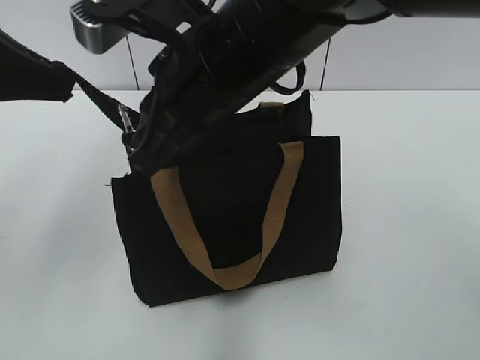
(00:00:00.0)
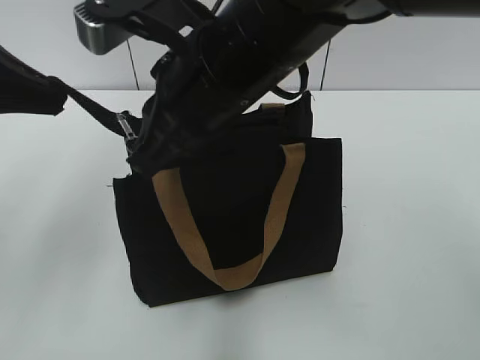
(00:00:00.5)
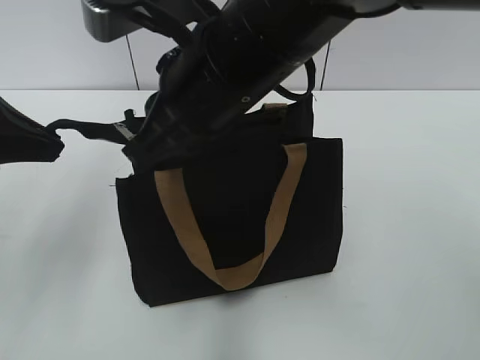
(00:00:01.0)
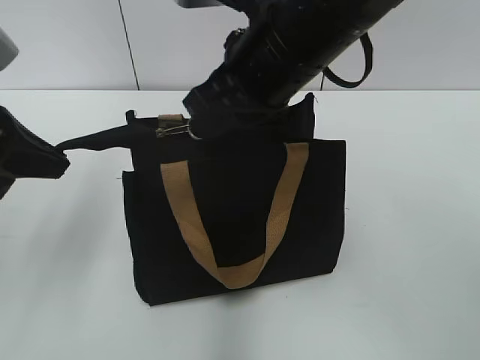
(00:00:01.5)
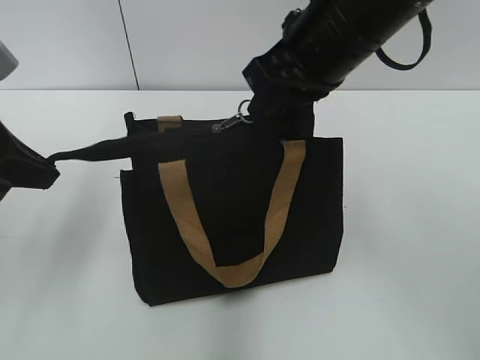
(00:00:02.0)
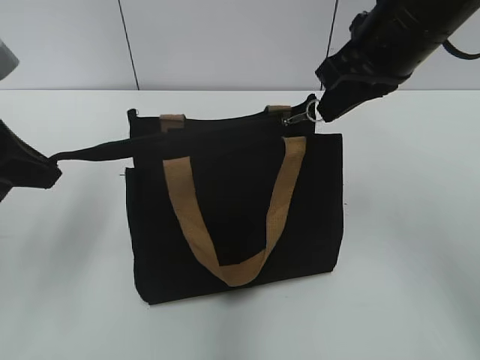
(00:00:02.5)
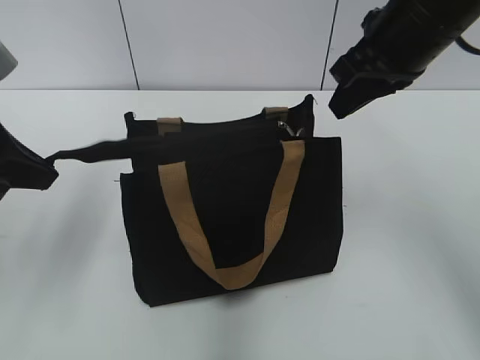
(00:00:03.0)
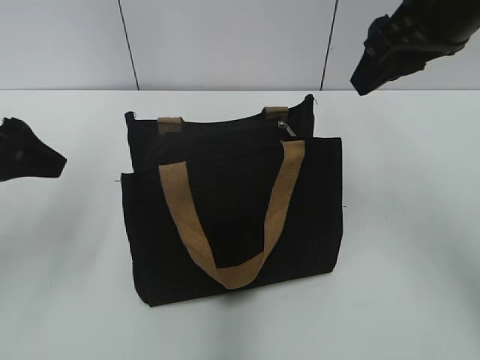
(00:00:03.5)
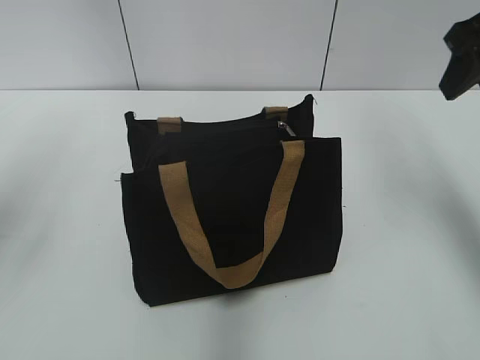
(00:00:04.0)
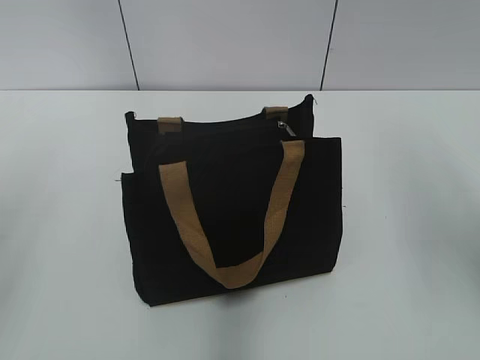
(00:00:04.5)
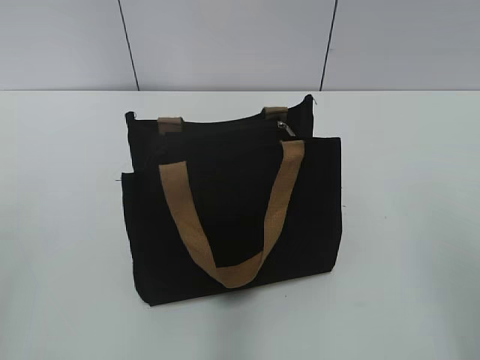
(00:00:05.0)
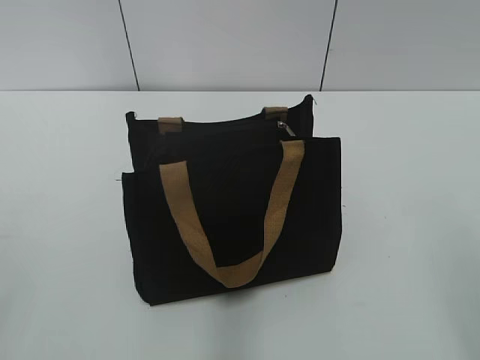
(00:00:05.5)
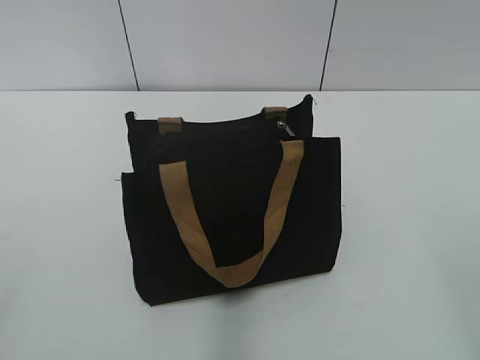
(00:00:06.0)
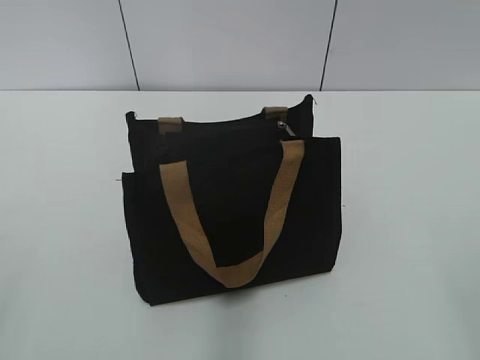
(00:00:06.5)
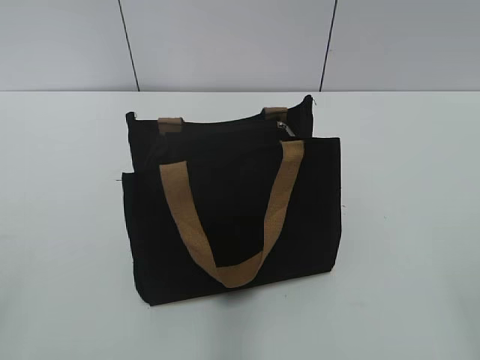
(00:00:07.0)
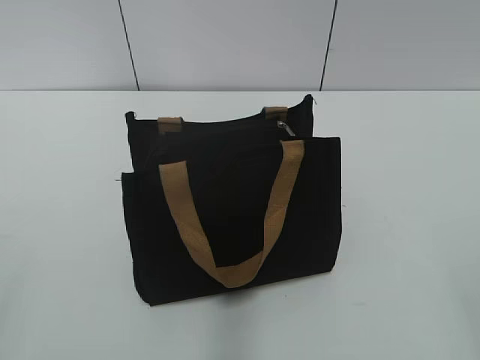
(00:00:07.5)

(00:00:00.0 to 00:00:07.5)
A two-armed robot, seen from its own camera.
Step, 00:00:00.0 - 00:00:03.0: Zip up the bag with your right hand.
00:00:00.0 - 00:00:02.0: The left gripper shifts approximately 5 cm downward. The right gripper moves to the right, approximately 10 cm.
00:00:02.0 - 00:00:04.0: The right gripper shifts some 15 cm to the right, and opens its fingers, while the left gripper goes roughly 5 cm upward, and opens its fingers.
00:00:04.0 - 00:00:05.5: The two grippers go approximately 25 cm backward.

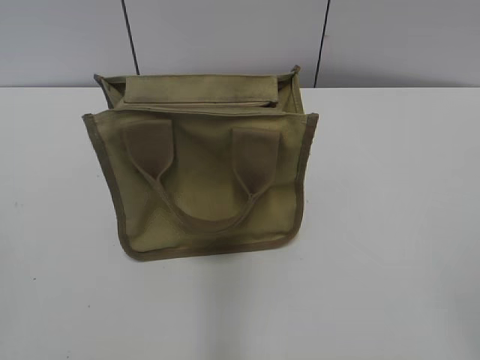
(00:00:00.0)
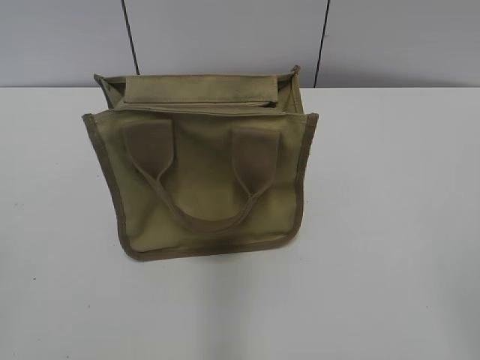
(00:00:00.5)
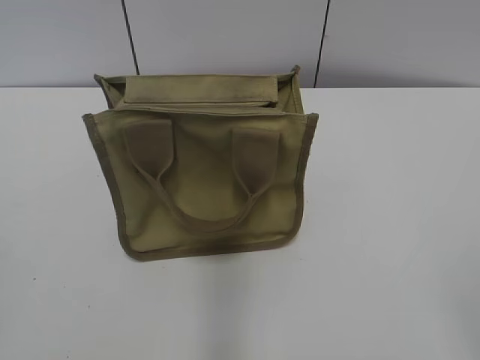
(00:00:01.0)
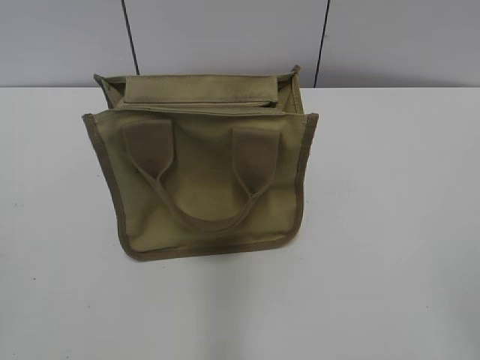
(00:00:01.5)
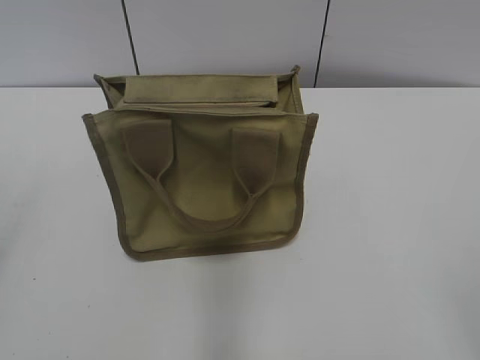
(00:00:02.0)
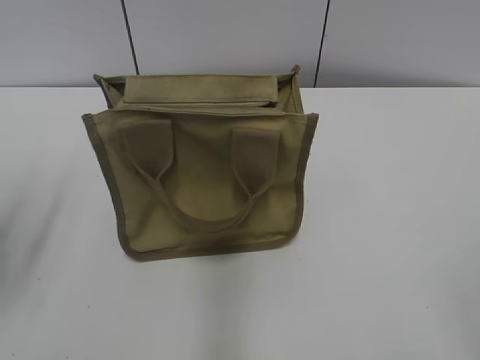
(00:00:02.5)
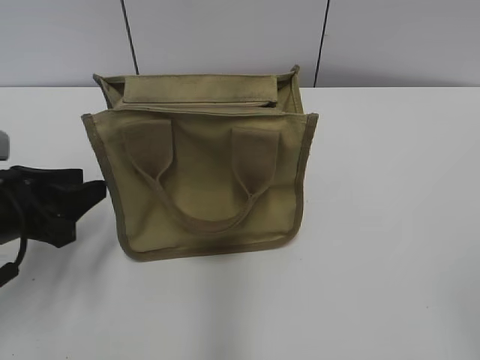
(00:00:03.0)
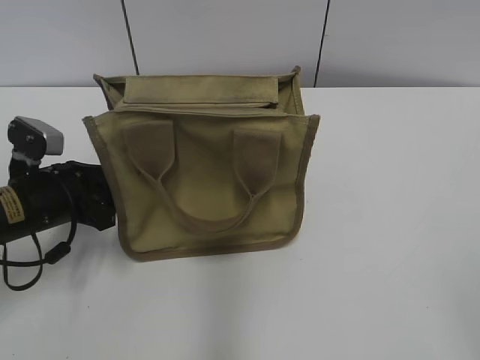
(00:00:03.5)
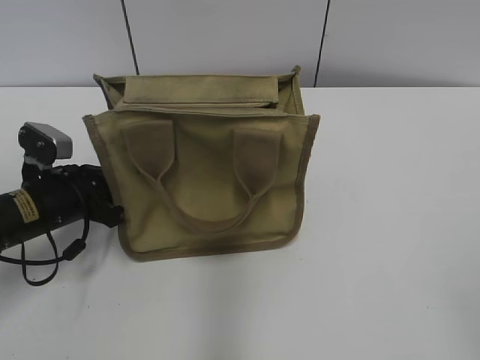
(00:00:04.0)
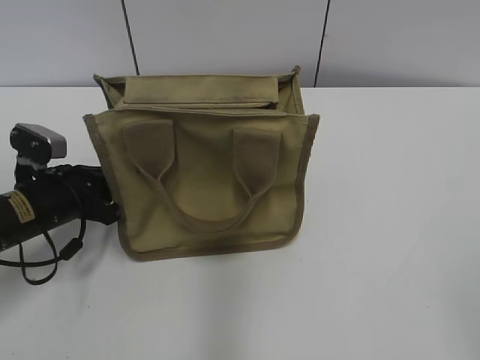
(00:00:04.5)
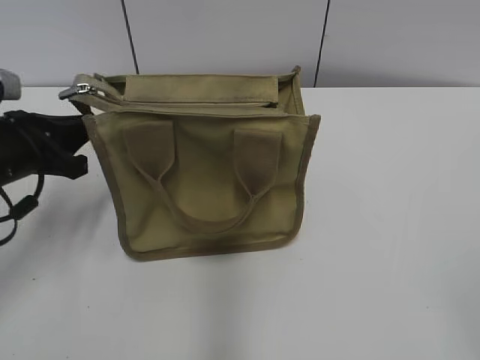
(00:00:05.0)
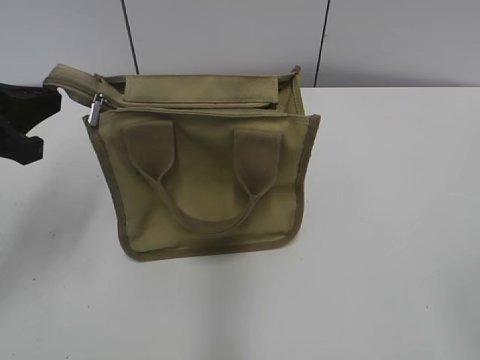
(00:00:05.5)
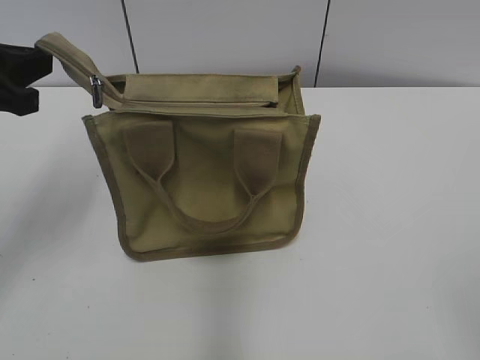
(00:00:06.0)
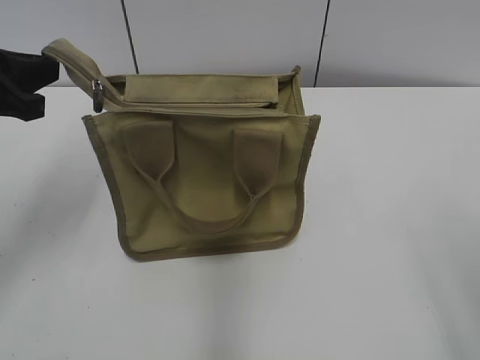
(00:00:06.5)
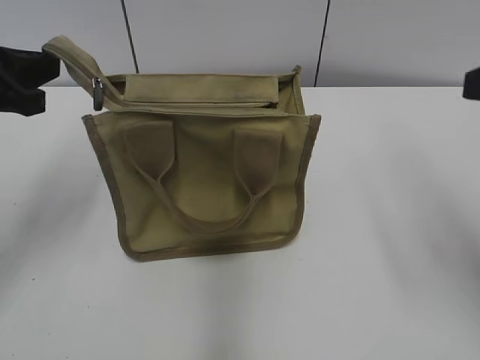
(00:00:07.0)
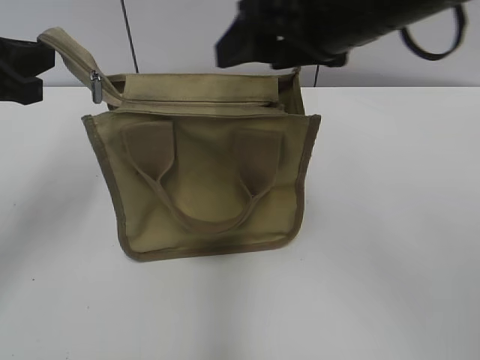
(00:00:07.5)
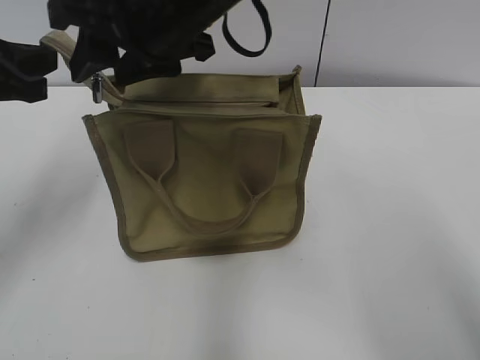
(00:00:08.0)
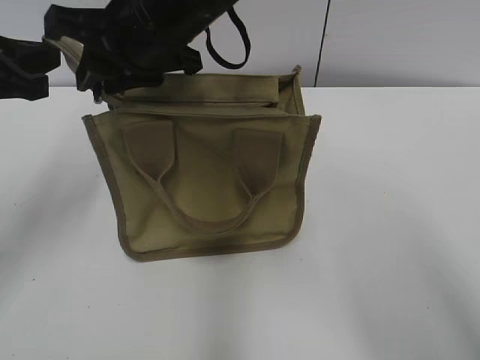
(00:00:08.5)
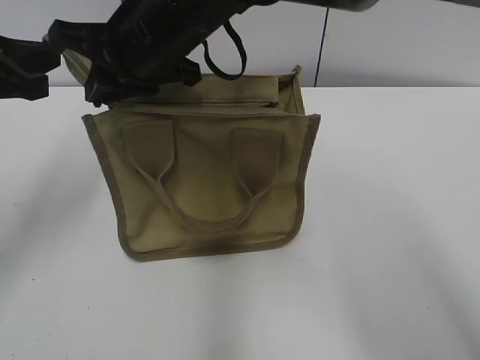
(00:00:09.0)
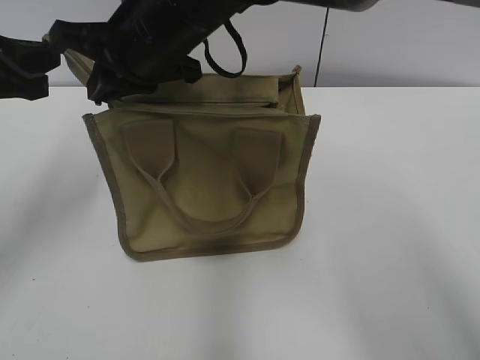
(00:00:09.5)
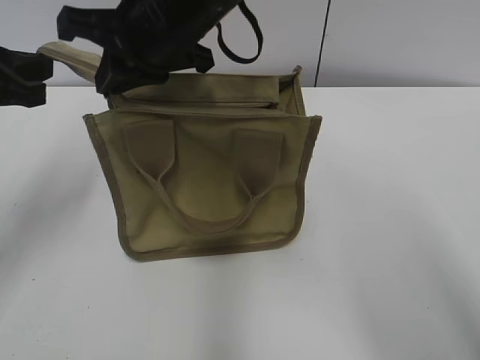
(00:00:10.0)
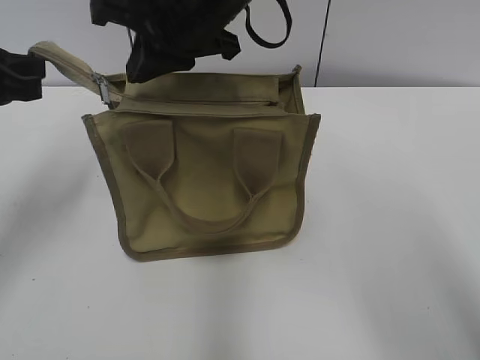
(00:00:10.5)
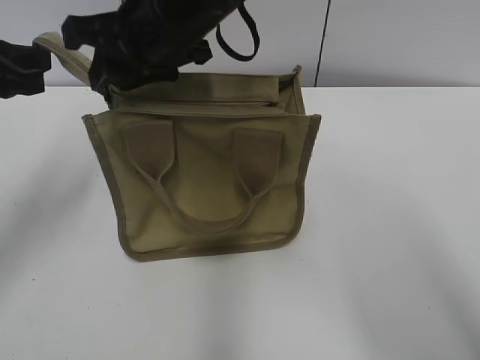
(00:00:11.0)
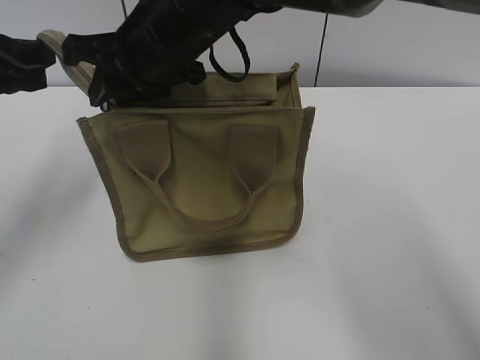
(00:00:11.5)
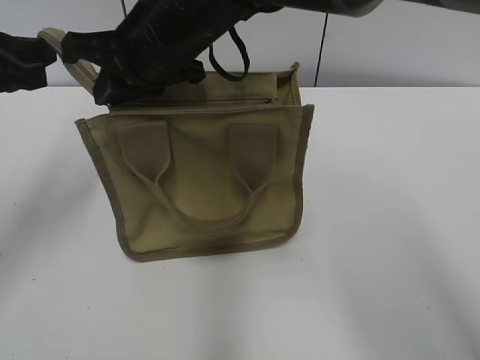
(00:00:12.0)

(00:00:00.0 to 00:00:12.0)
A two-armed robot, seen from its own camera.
00:00:02.0 - 00:00:04.0: The left gripper heads forward and downward, covering some 35 cm, and closes.
00:00:04.0 - 00:00:06.0: The left gripper heads upward, covering roughly 20 cm.
00:00:06.0 - 00:00:08.0: The right gripper travels forward and to the left by approximately 40 cm.
00:00:08.0 - 00:00:10.0: The right gripper closes.
00:00:10.0 - 00:00:12.0: The right gripper opens, then closes once more.

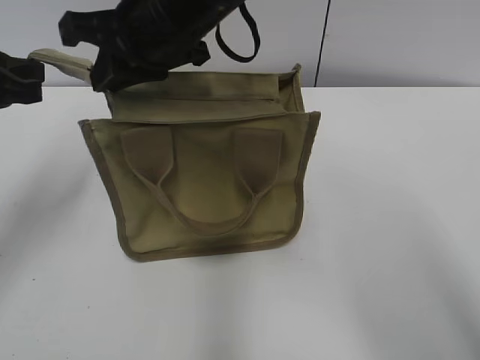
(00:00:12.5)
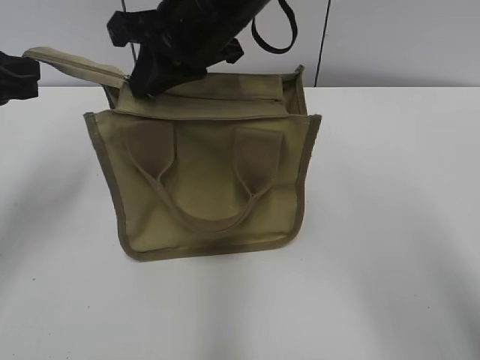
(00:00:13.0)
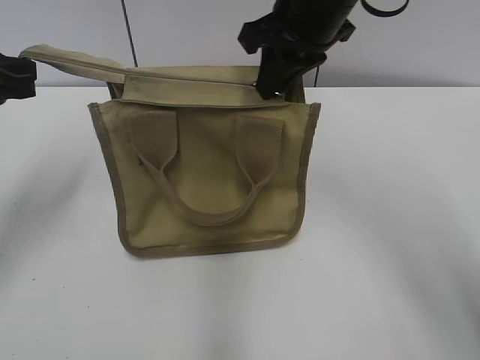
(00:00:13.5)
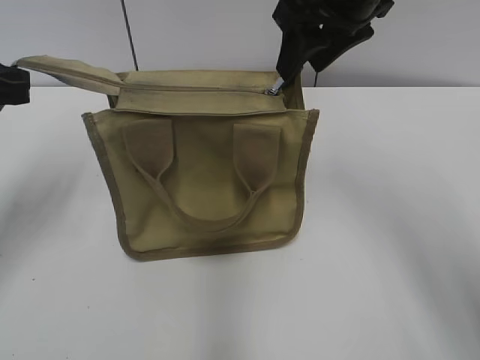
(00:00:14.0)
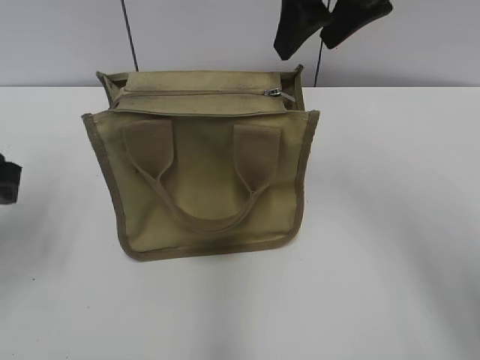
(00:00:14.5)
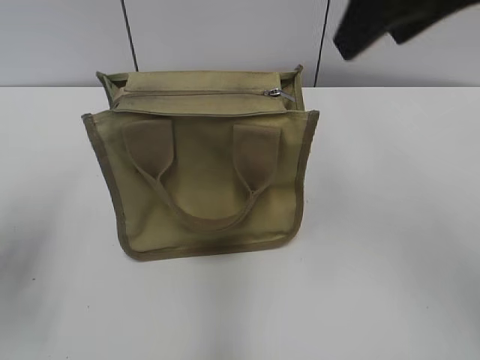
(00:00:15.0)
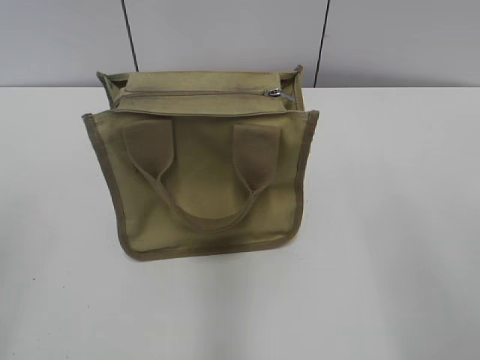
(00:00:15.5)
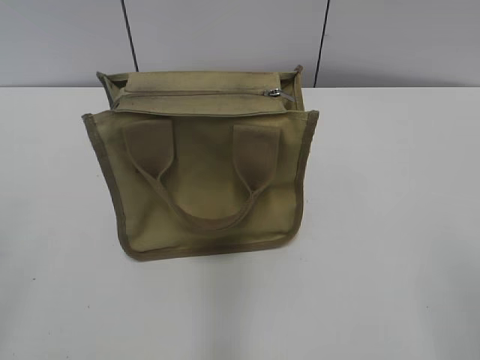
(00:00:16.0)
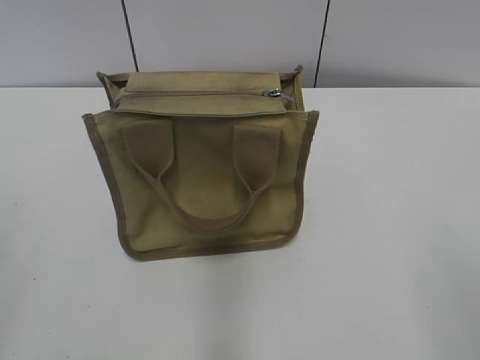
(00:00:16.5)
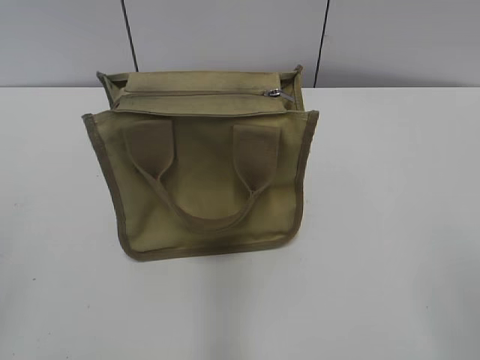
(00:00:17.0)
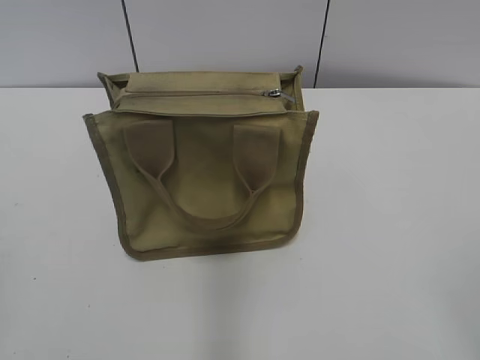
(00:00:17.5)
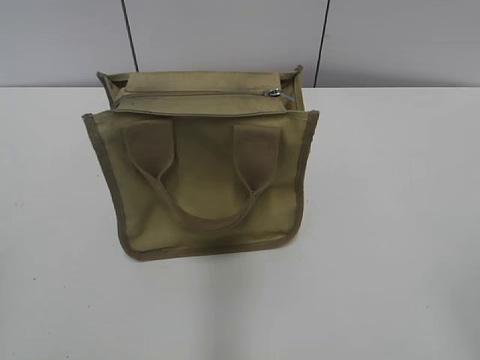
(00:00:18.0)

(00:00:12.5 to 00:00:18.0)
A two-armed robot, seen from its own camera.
00:00:12.5 - 00:00:14.5: The right gripper moves to the right, approximately 15 cm, and opens up. The left gripper shifts by some 5 cm, and opens.
00:00:14.5 - 00:00:16.0: The left gripper shifts approximately 20 cm backward. Meanwhile the right gripper shifts about 40 cm backward and to the right.
